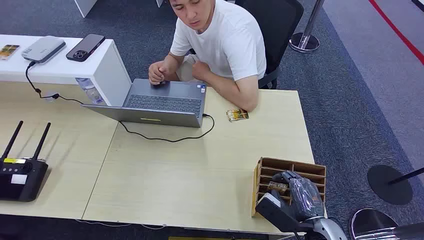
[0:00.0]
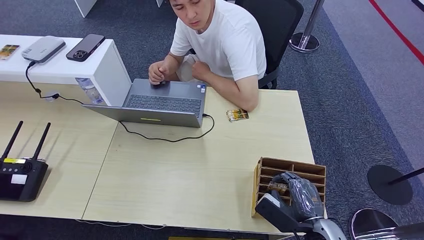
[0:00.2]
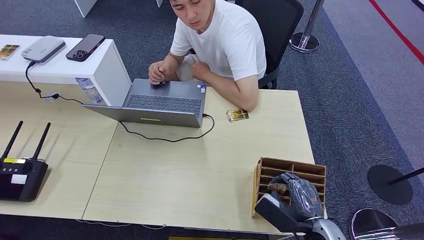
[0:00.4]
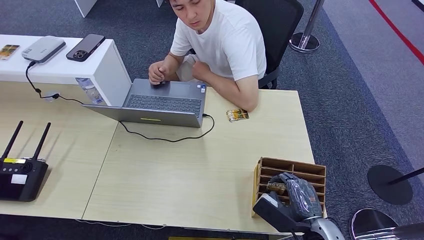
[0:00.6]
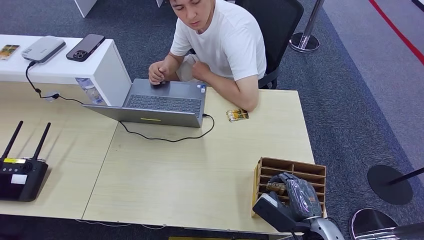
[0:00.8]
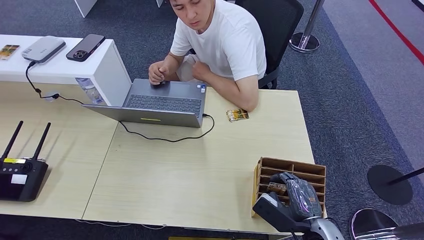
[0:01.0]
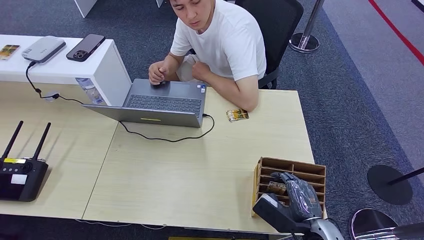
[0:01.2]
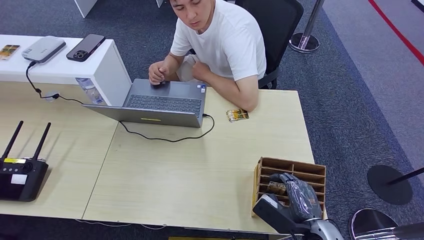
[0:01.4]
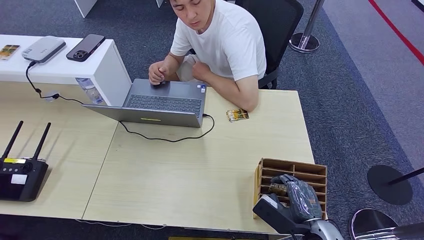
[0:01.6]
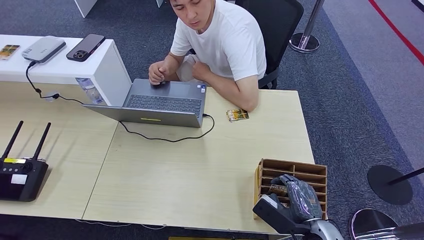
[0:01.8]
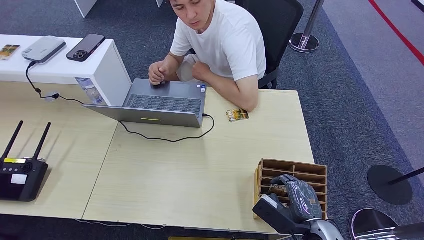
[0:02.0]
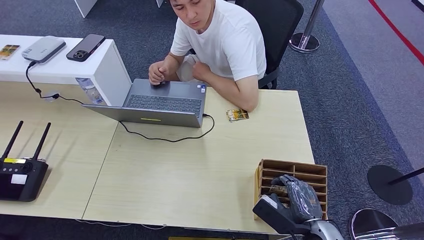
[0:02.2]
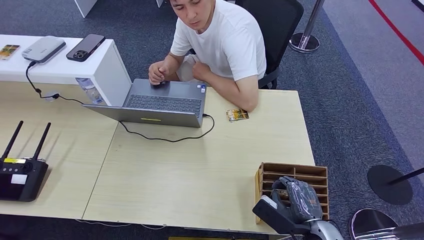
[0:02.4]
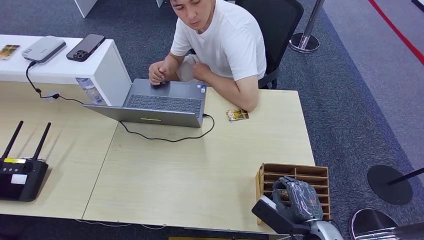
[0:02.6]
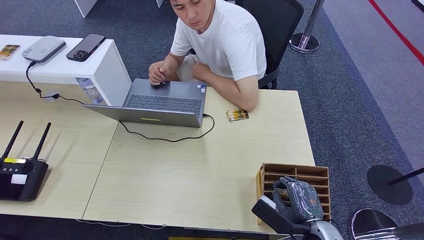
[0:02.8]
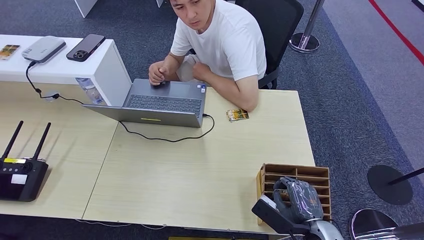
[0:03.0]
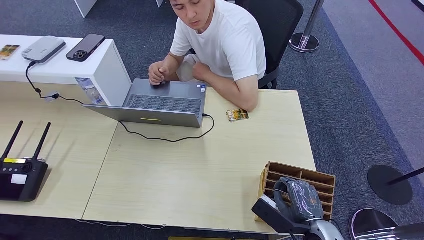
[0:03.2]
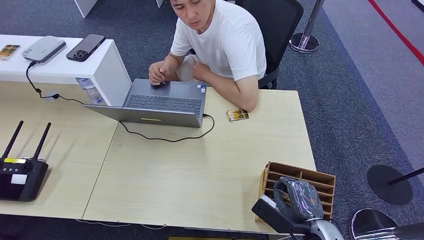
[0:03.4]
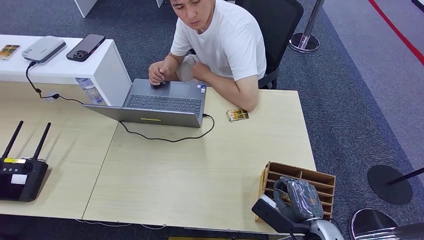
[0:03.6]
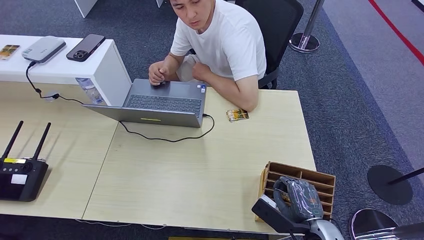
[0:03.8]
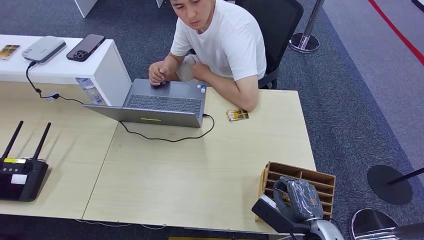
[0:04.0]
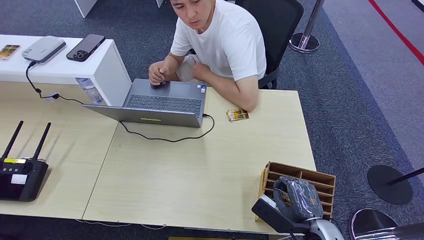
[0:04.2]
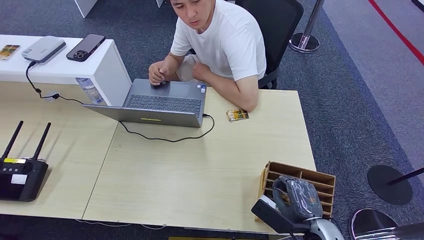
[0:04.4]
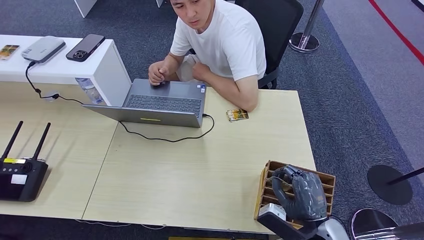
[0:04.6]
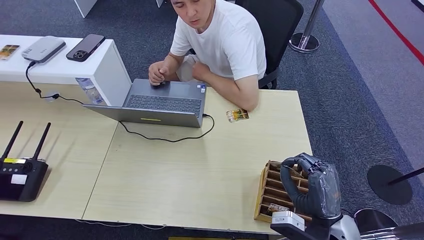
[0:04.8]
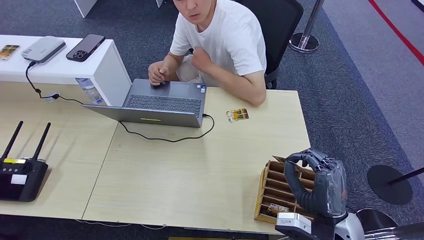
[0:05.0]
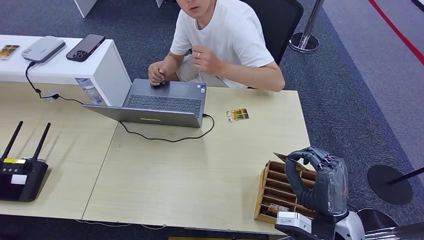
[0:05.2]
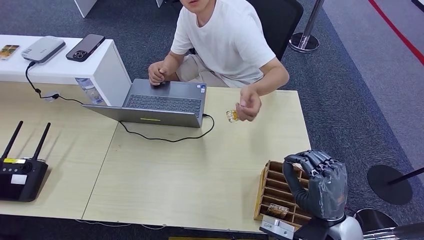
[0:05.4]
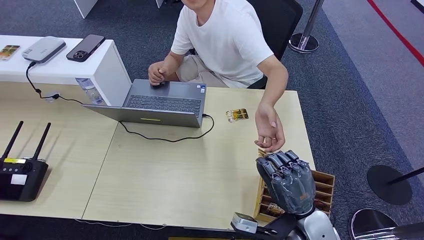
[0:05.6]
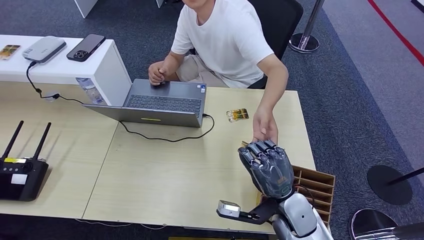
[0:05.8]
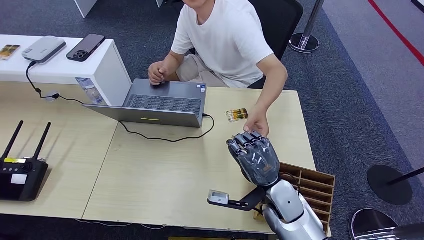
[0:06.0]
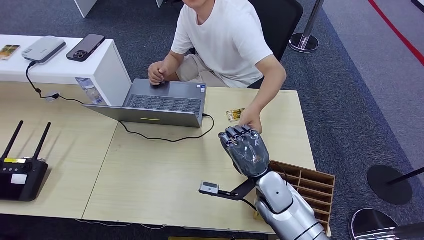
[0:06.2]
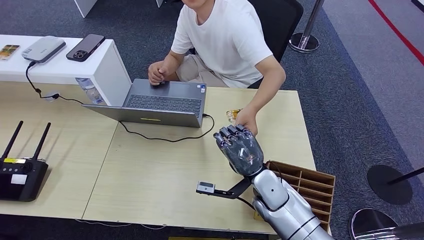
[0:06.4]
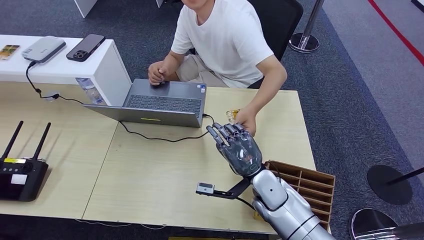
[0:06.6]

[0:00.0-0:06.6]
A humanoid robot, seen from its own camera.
Step, 0:00.0 to 0:04.4: Pick up the room card from the card holder.
Step, 0:04.6 to 0:06.6: Hand the room card to the target.
0:01.6 to 0:03.2: Both hands stay about where they are.
0:03.2 to 0:05.0: The right hand heads upward, covering some 5 cm.
0:05.0 to 0:06.6: The right hand goes some 15 cm to the left and forward.
